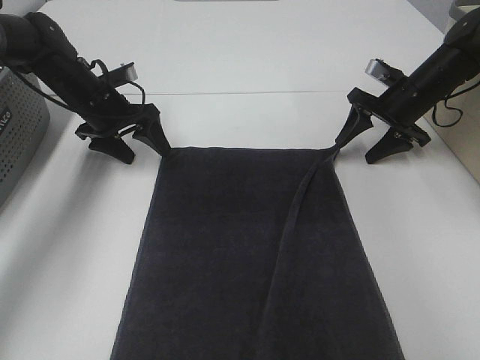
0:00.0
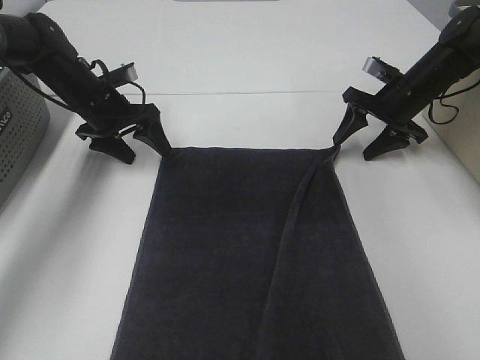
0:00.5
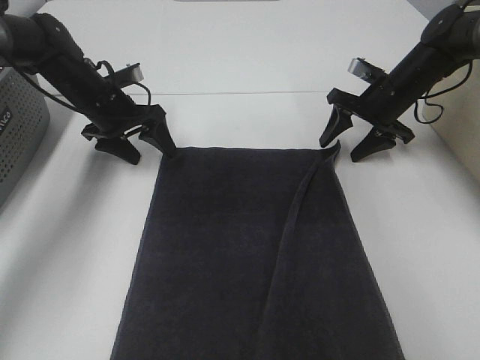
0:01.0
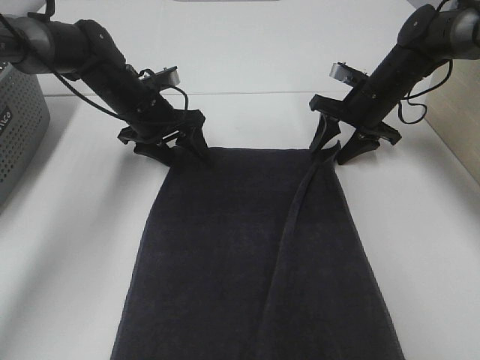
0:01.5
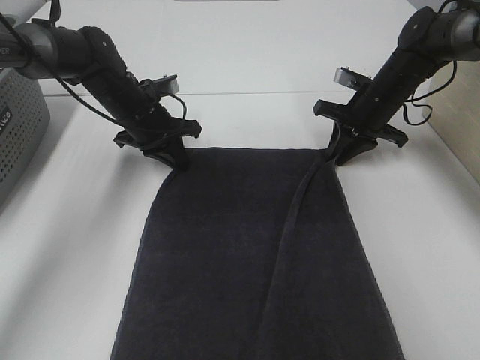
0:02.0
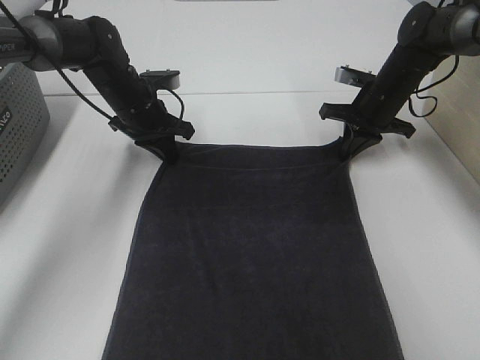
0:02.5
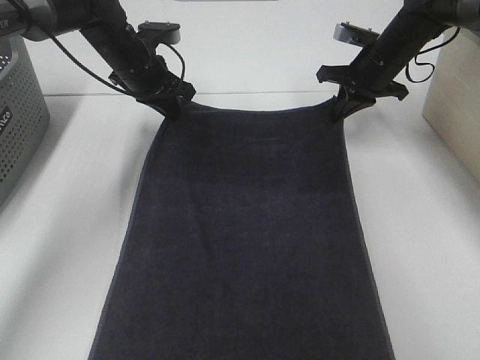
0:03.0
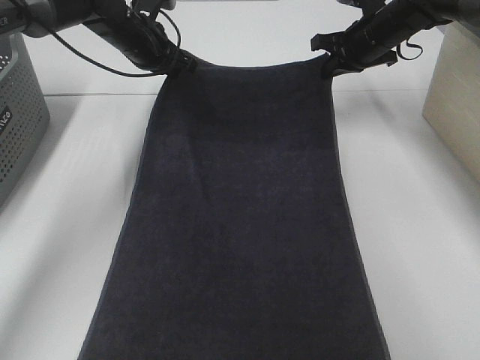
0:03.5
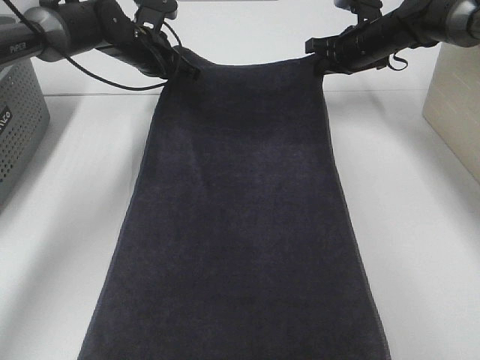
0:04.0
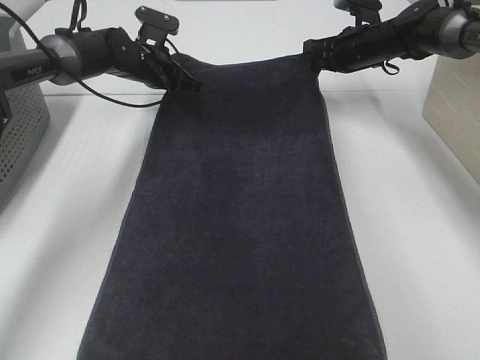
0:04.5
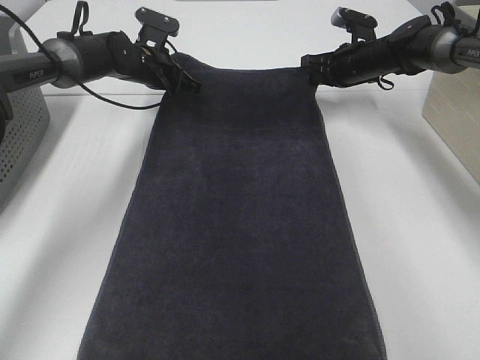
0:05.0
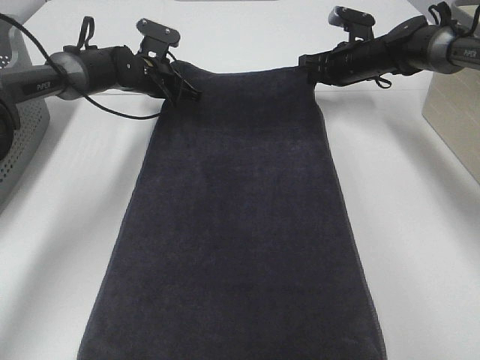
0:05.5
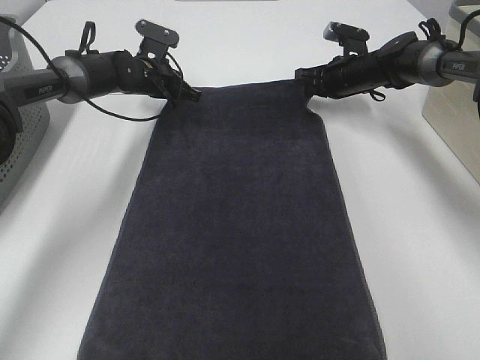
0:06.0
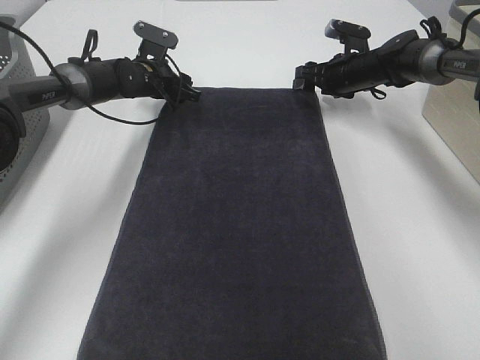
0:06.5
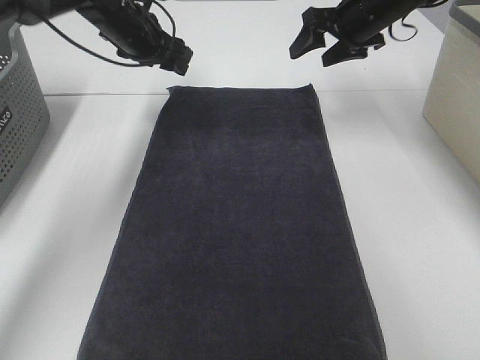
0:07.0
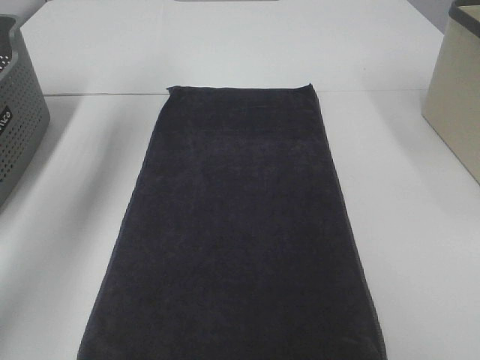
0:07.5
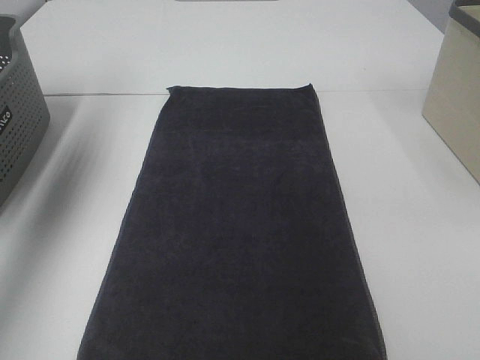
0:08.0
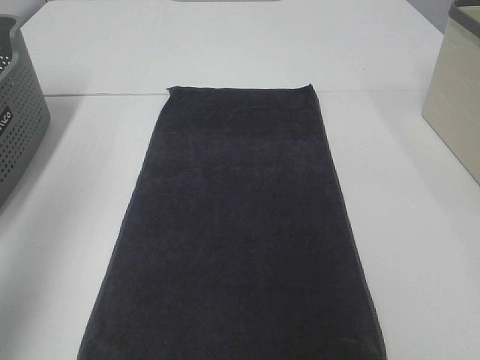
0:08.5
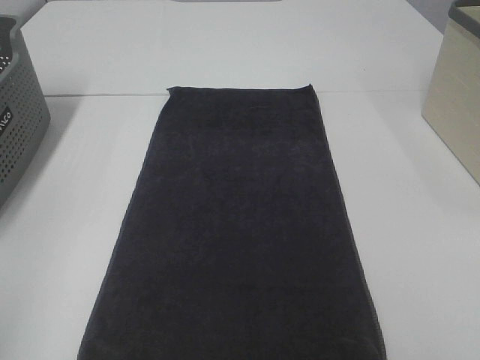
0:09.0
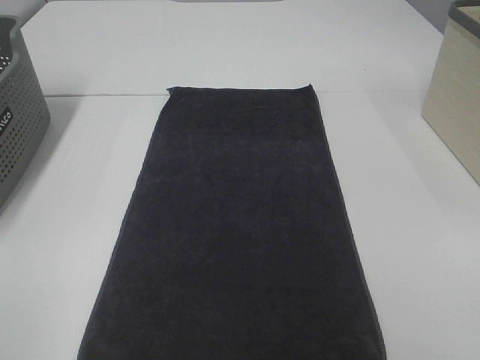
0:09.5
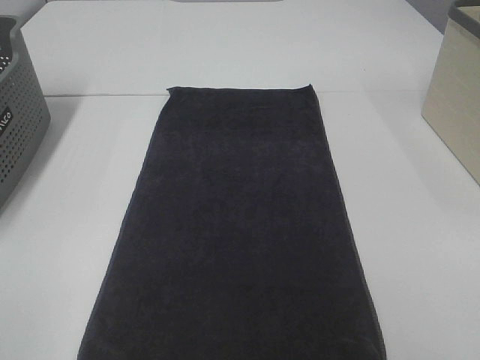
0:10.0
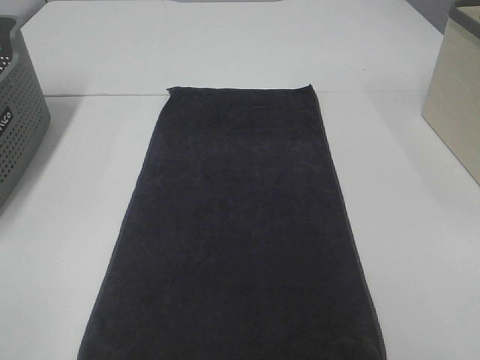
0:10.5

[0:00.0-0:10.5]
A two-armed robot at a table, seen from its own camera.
Task of the whole recording: Remove the towel and place it.
0:00.0 to 0:02.0: The left gripper travels to the right by roughly 5 cm, and closes its fingers, while the right gripper moves to the left, roughly 5 cm, and closes its fingers.
0:02.0 to 0:04.0: The right gripper is displaced forward by about 10 cm. The left gripper shifts some 10 cm forward and upward.
0:04.0 to 0:06.5: Both grippers move downward, approximately 5 cm. The left gripper opens; the right gripper opens up.
0:06.5 to 0:08.5: Both grippers move backward and upward, approximately 50 cm.
0:08.5 to 0:10.5: The left gripper travels backward and downward by about 20 cm.

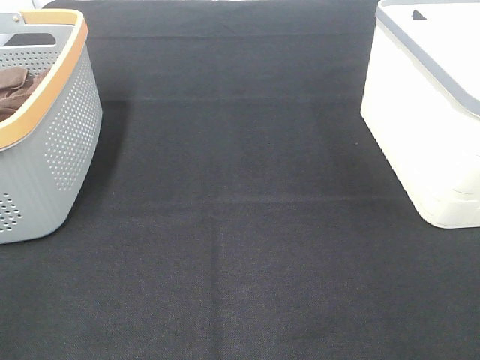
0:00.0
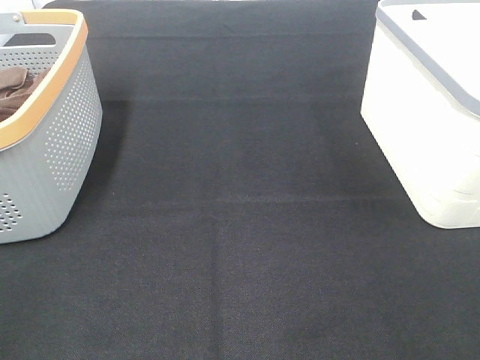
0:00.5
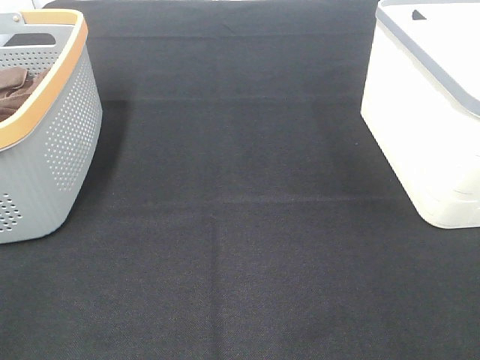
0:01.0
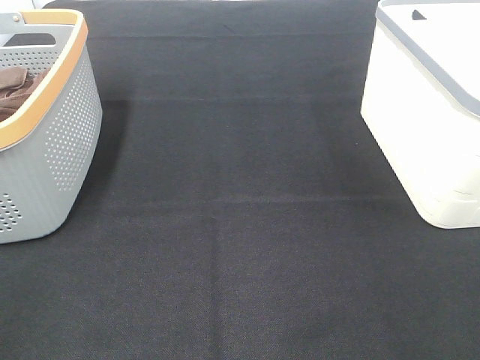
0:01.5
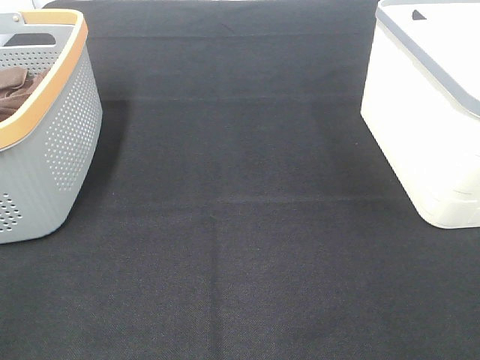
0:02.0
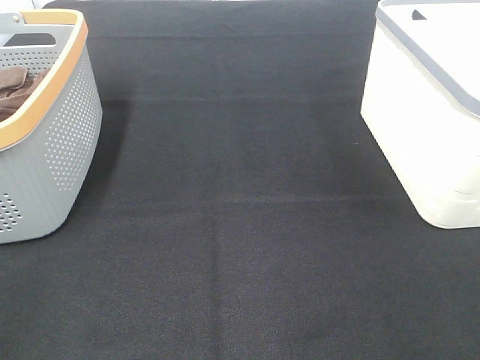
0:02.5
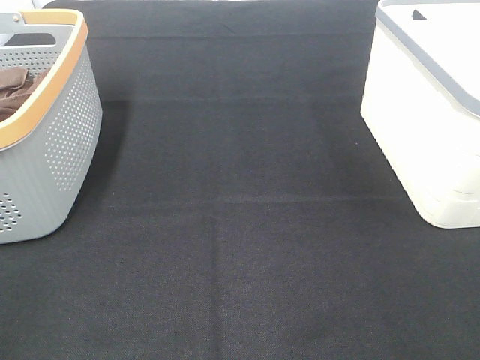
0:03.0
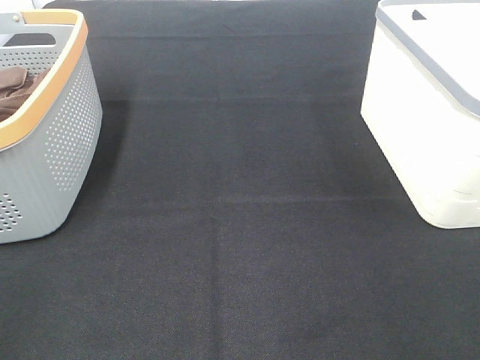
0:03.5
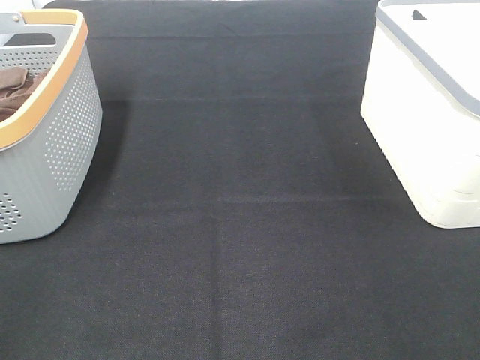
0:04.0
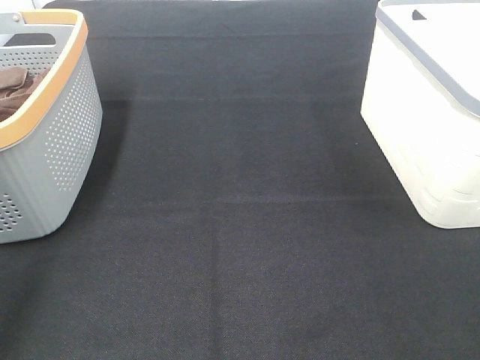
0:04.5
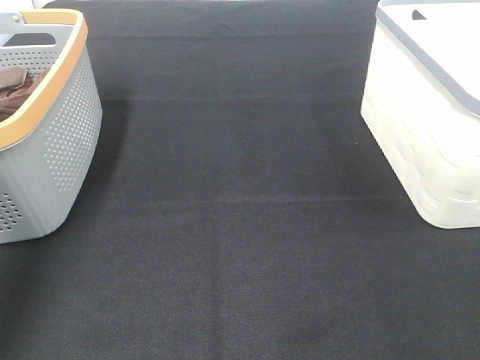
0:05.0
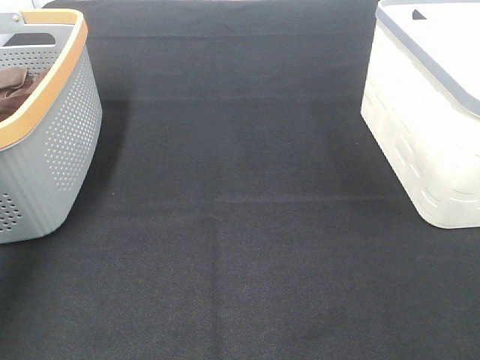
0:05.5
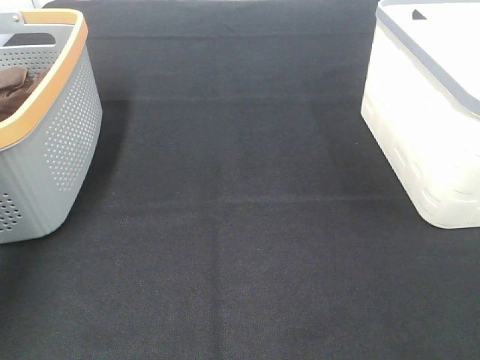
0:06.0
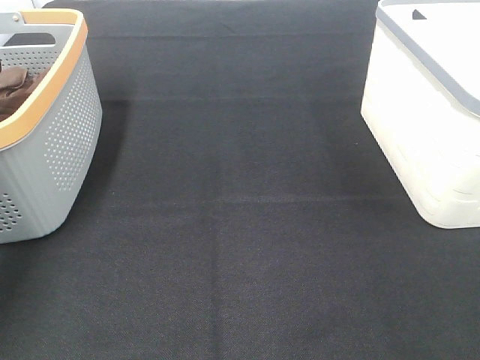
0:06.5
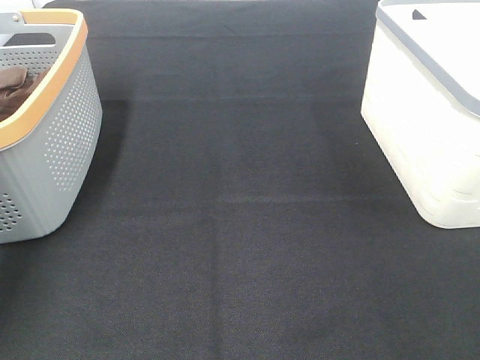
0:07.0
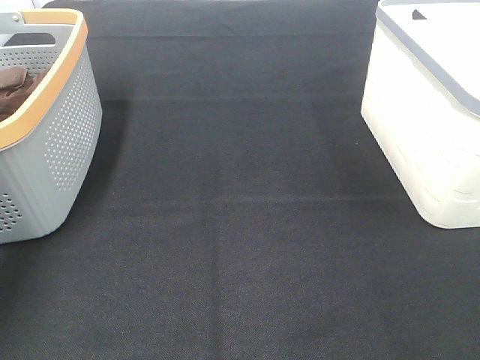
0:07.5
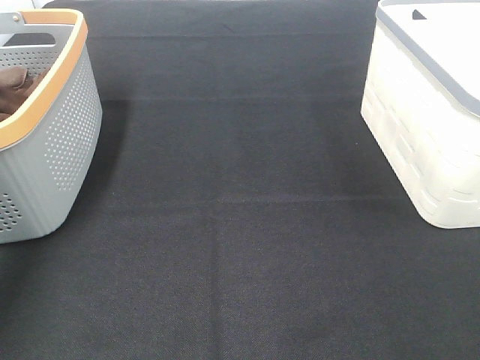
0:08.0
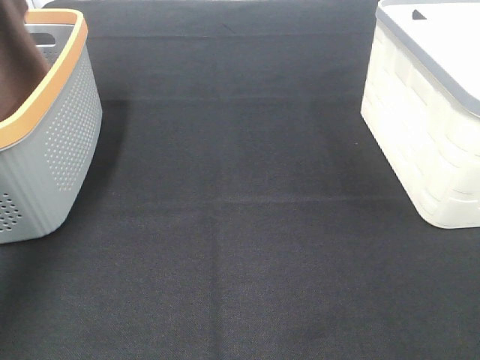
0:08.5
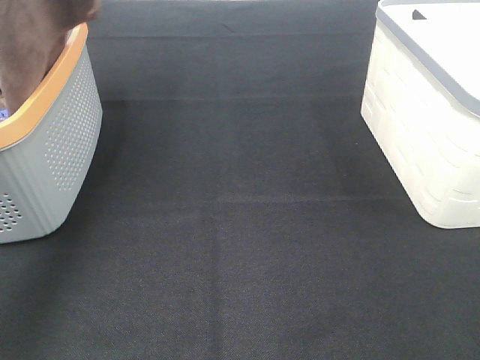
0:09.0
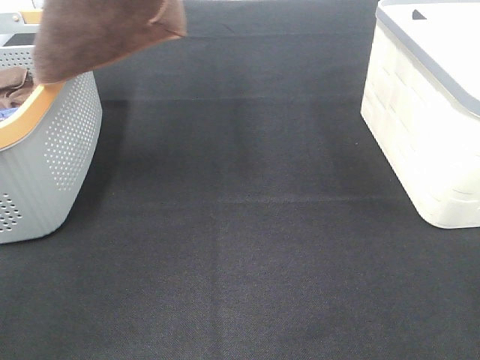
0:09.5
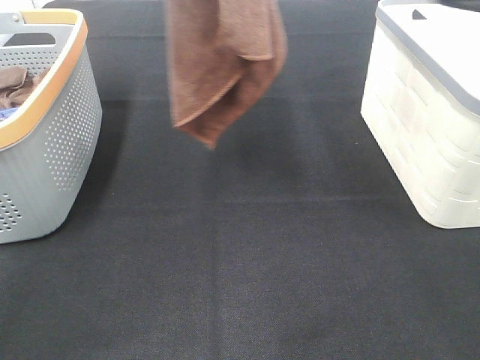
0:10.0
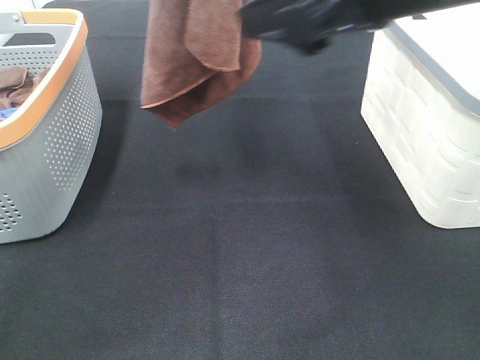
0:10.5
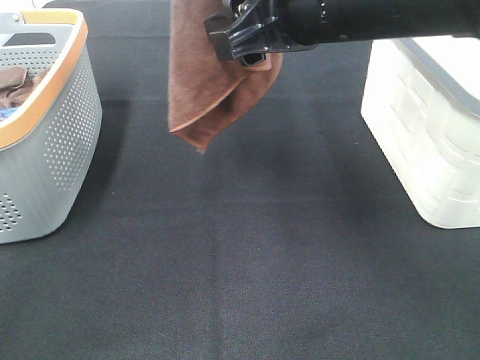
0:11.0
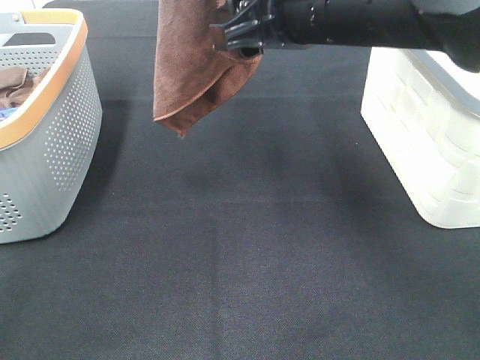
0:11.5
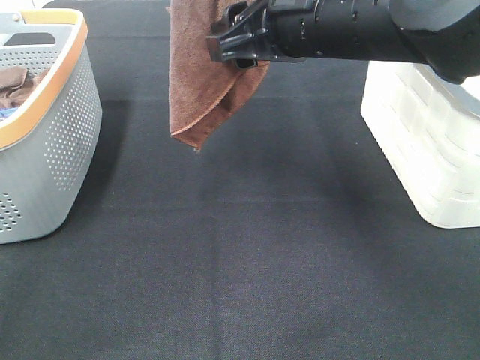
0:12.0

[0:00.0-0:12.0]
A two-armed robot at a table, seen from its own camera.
Task of the whole recording: Remove the towel and place it.
0:00.0 to 0:02.0: The two grippers keep their place.
0:04.0 to 0:06.0: The left gripper travels forward by about 40 cm.
0:08.0 to 0:10.0: The right gripper goes about 20 cm forward and upward, while the left gripper goes about 30 cm to the right, upward and backward.
0:10.0 to 0:12.0: The right gripper moves to the left, forward and downward, about 20 cm.

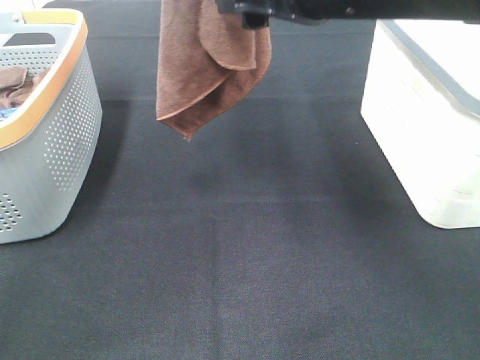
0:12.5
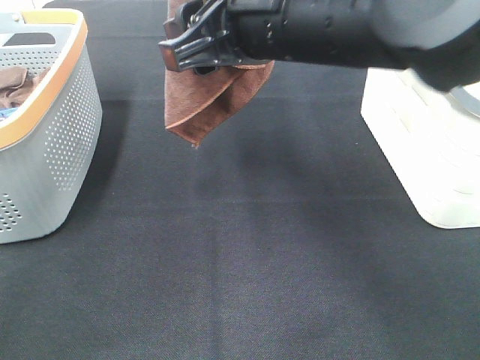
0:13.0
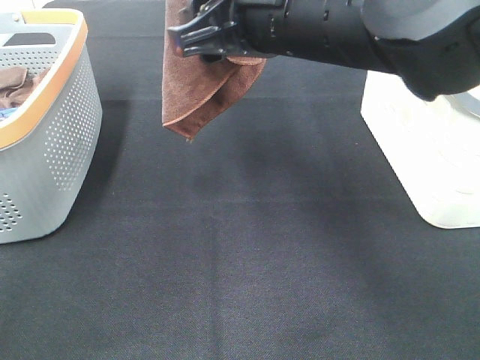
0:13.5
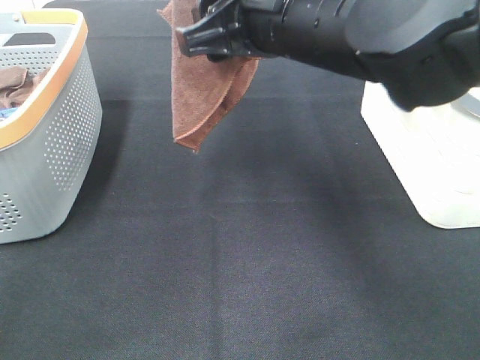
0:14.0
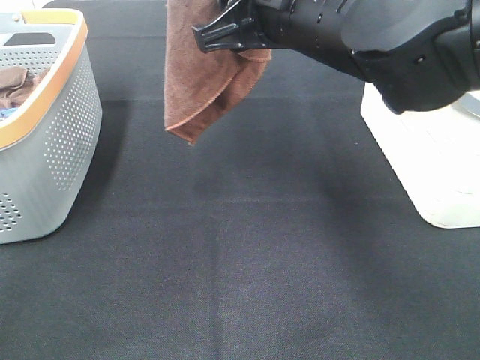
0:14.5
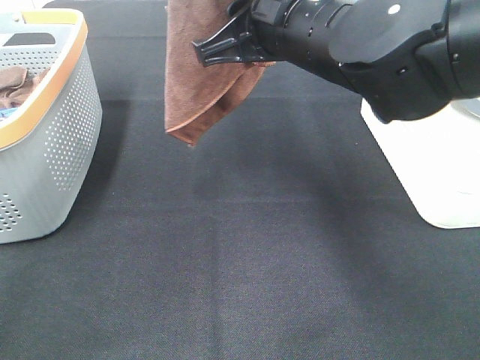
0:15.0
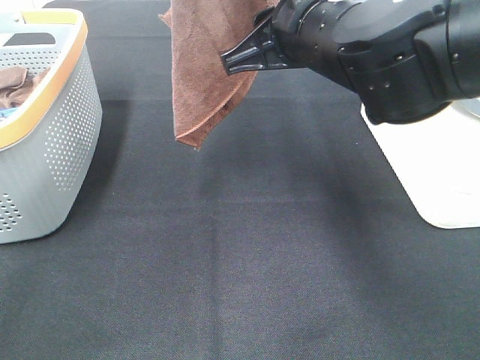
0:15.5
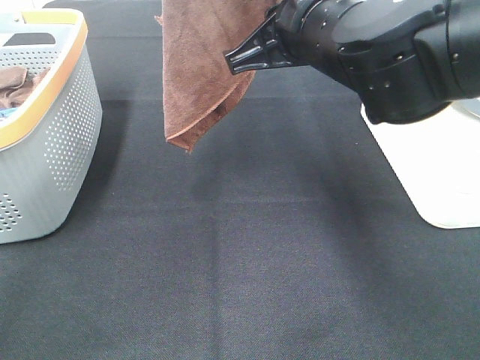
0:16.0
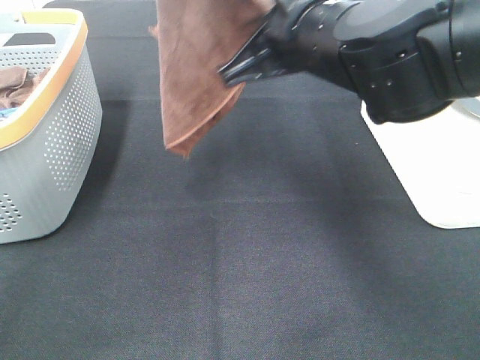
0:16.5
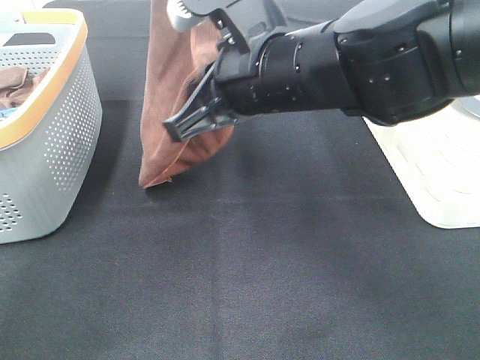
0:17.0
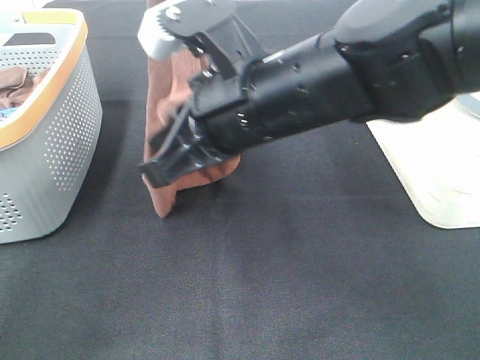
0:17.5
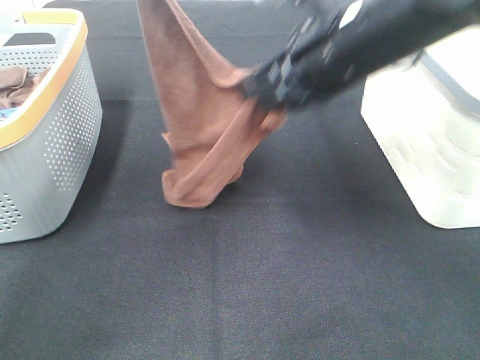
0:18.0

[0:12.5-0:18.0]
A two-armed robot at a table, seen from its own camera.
Task of the whole recording: Remove the towel and place it.
Step, 0:12.5 to 0:15.0: Right hand: grab a corner of the brown towel and straighten it.
Step, 0:15.5 to 0:17.5: Left hand: spread the brown towel flat on the table.
Step, 0:15.5 to 0:17.5: Right hand: spread the brown towel flat on the table.
0:12.5 to 0:14.5: The grippers make only small movements.
0:14.5 to 0:16.0: The right gripper closes.
0:16.0 to 0:18.0: The left gripper shifts some 10 cm downward.
